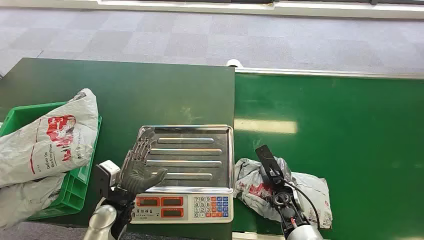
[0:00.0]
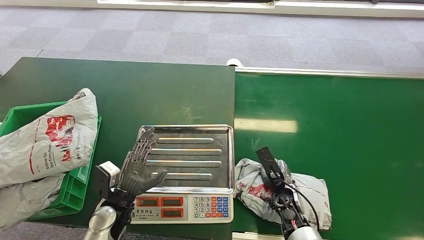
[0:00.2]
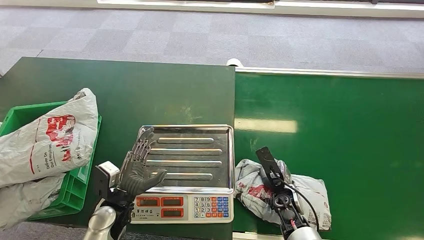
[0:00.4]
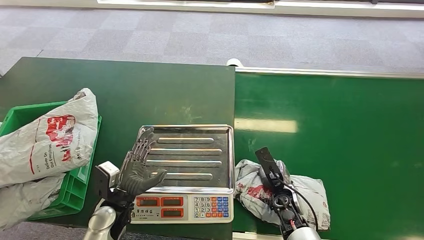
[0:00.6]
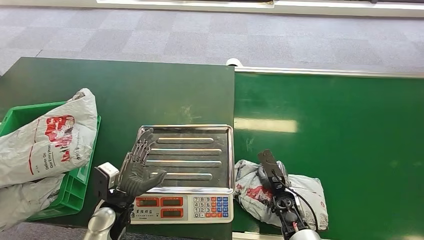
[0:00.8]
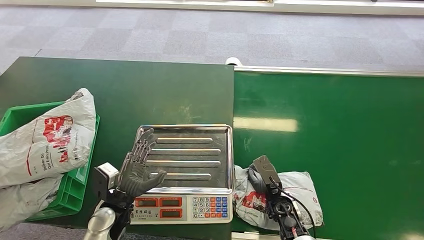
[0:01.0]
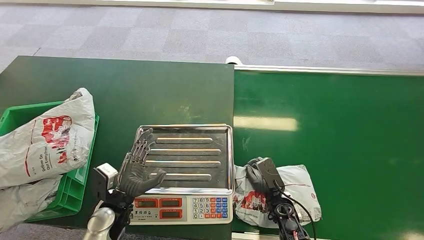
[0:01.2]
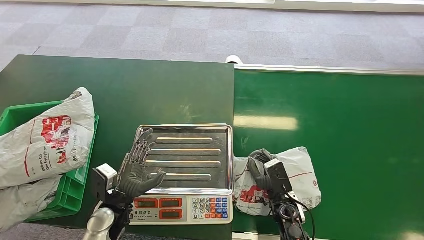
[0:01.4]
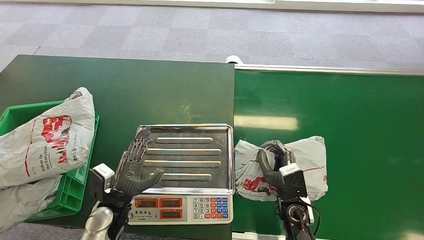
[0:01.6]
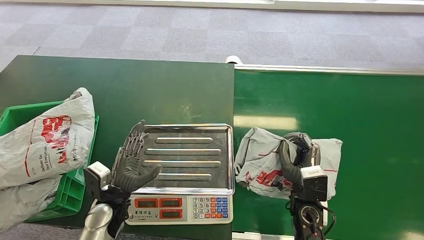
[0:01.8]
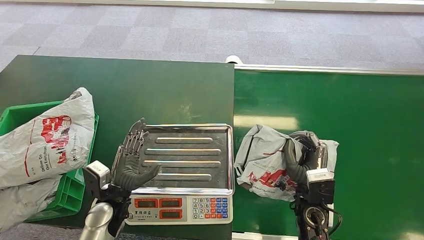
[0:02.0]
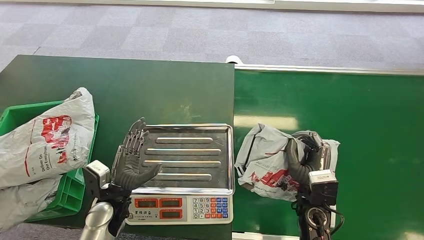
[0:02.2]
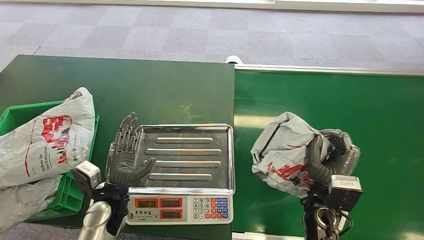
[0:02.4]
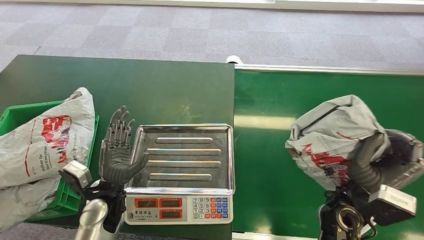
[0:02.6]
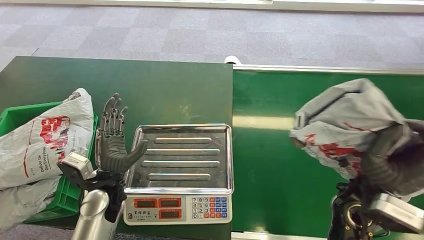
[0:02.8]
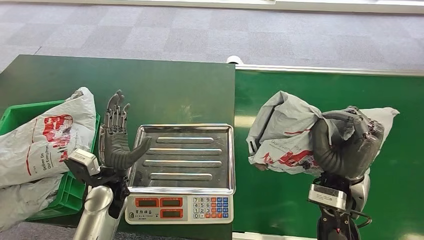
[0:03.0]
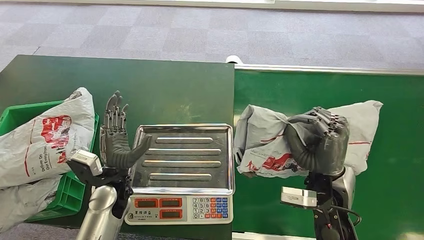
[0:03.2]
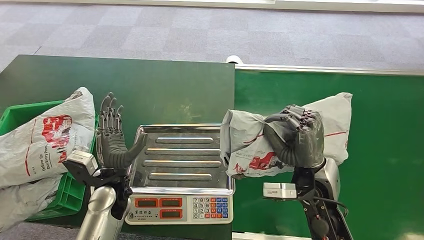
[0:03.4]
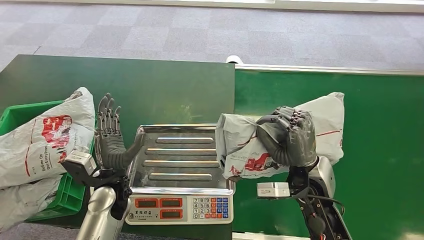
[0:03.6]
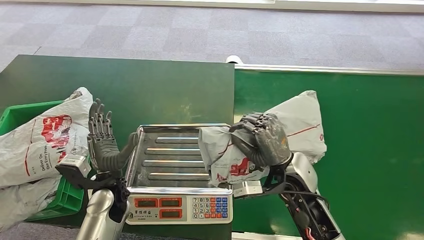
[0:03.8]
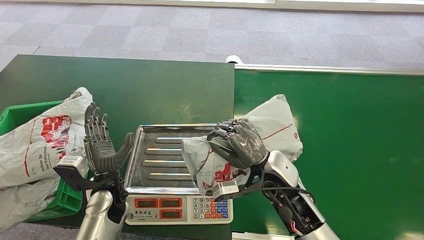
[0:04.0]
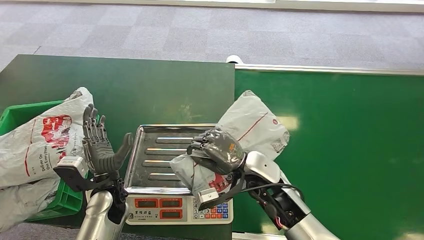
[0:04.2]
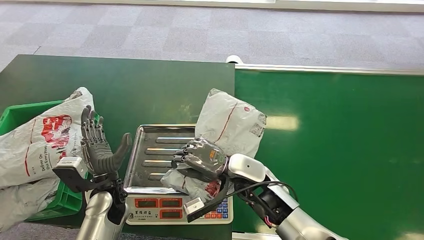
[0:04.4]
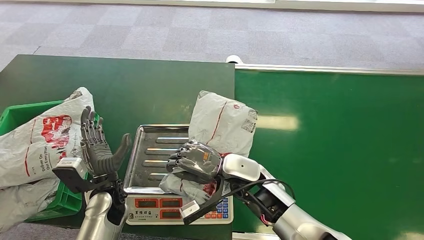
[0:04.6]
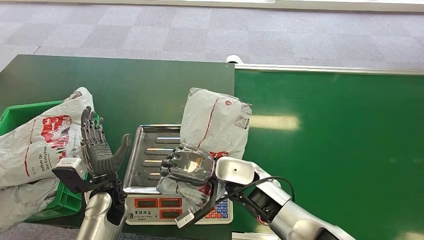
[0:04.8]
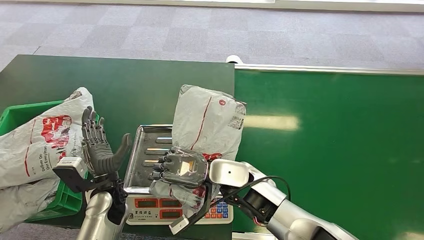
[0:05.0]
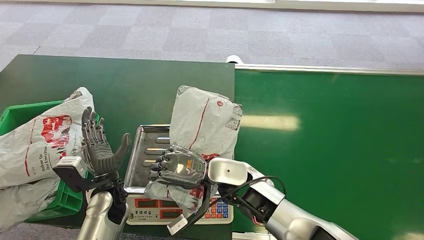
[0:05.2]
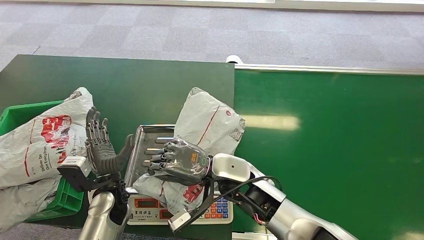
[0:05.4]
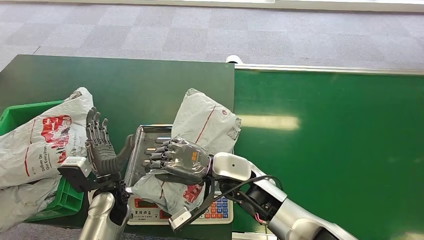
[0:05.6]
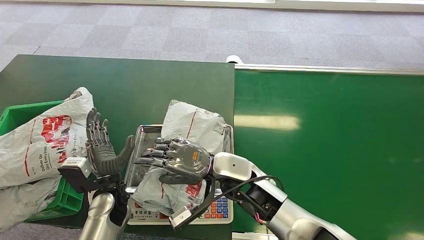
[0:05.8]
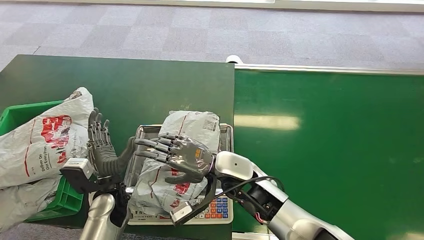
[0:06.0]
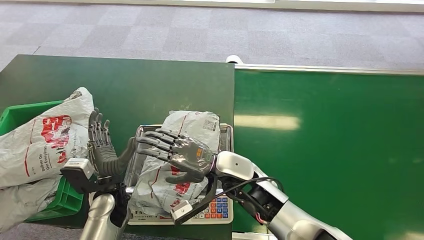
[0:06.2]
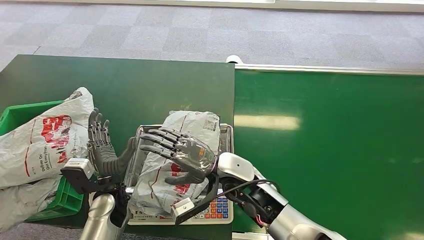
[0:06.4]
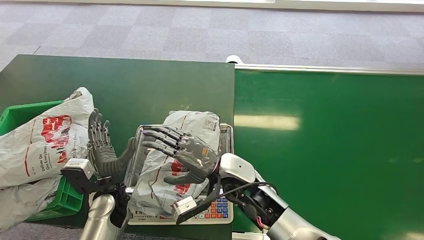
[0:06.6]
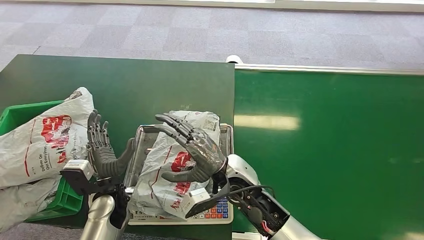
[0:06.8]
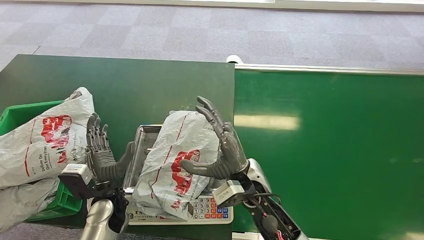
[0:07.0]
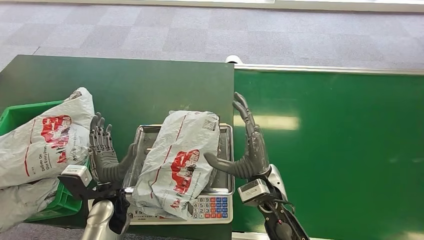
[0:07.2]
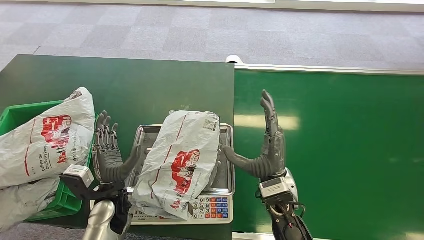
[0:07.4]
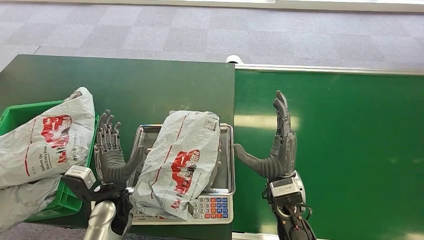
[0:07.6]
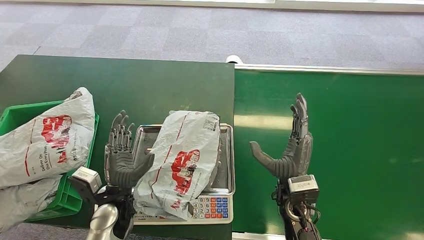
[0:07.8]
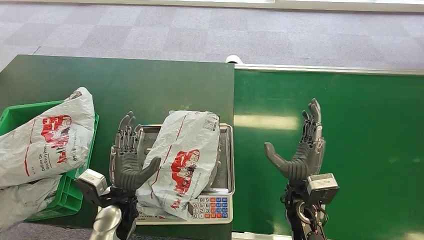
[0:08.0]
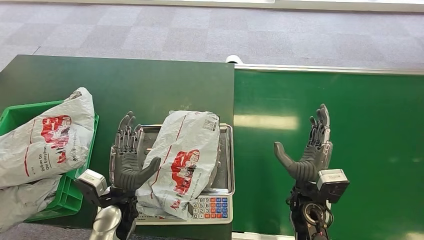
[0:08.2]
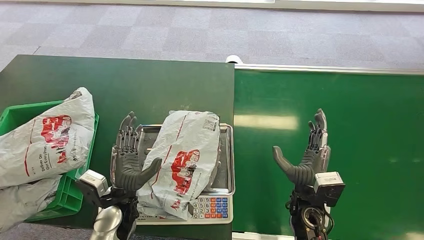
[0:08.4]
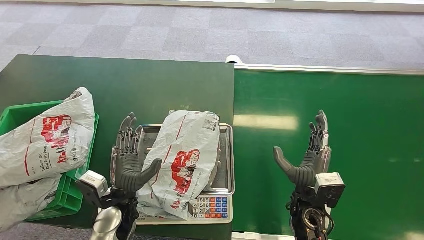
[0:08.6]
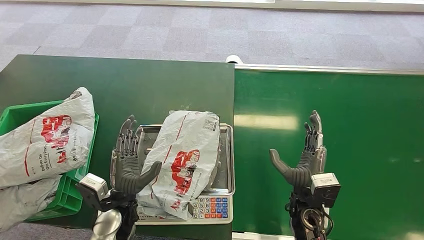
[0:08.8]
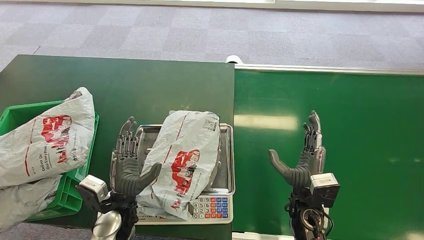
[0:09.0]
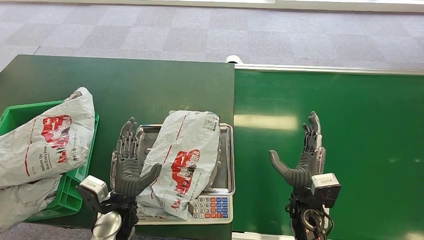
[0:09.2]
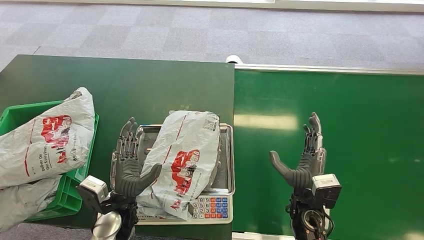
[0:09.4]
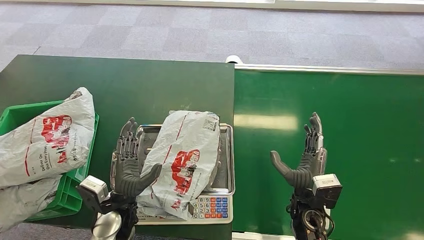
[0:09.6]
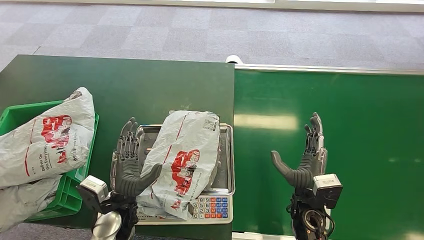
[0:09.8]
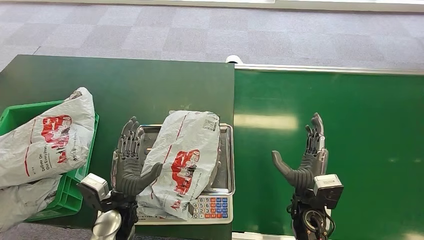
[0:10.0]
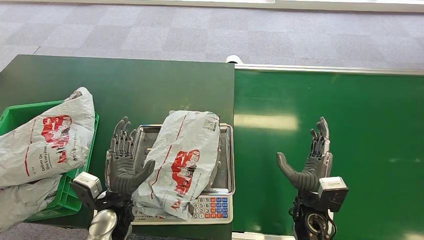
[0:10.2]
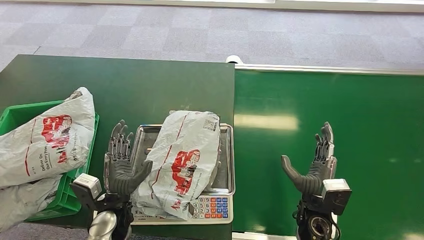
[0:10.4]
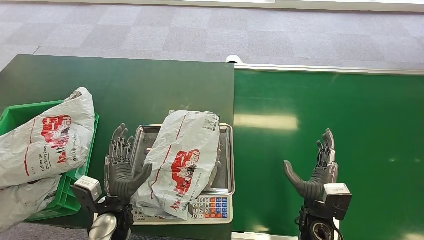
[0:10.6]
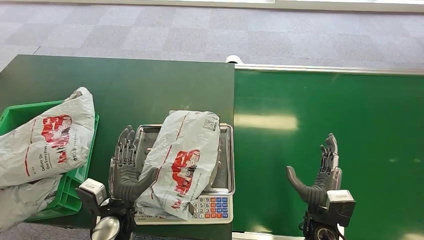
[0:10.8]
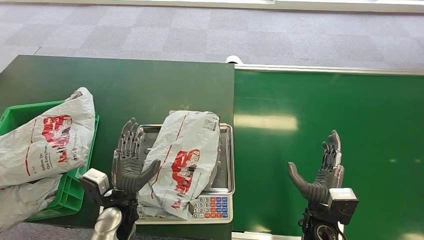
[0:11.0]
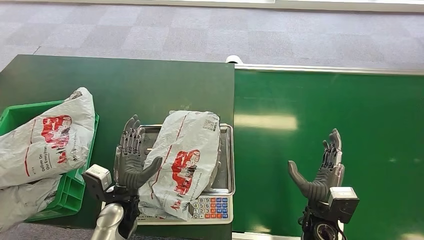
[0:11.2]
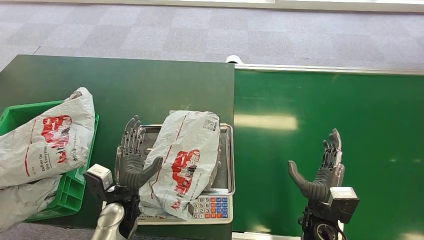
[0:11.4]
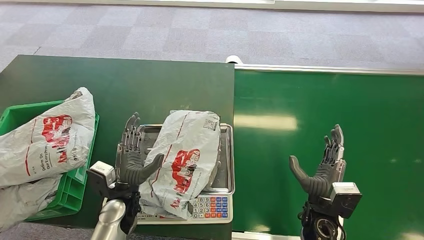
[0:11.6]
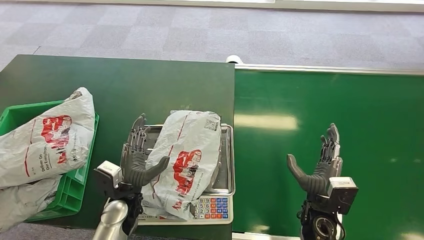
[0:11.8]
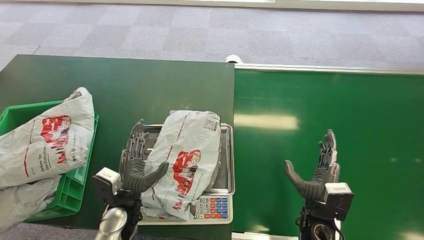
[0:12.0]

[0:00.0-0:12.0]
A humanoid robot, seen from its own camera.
Task of the whole recording: Weigh the package on the weighing device and place it in the left basket.
Step, 0:00.0 to 0:02.0: Pick up the package from the conveyor belt.
Step, 0:03.2 to 0:05.8: Place the package onto the inbound machine.
0:01.6 to 0:03.0: The left hand travels upward by roughly 5 cm; the right hand is displaced upward by approximately 15 cm.
0:04.4 to 0:06.0: The hands stay close to where they were, moving slightly.
0:06.0 to 0:07.6: The right hand is displaced to the right and backward by some 10 cm.
0:07.6 to 0:09.0: The right hand moves to the right, about 5 cm.
0:09.0 to 0:12.0: The hands move only a little.

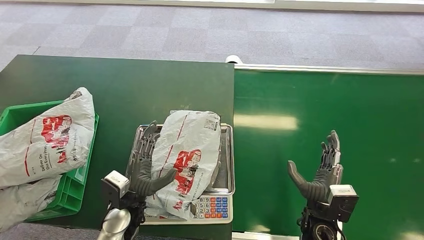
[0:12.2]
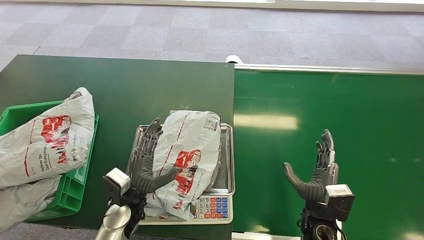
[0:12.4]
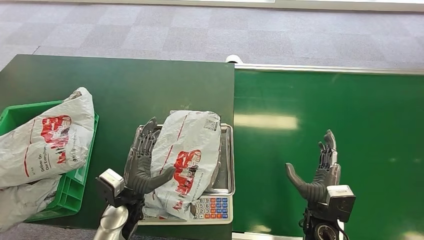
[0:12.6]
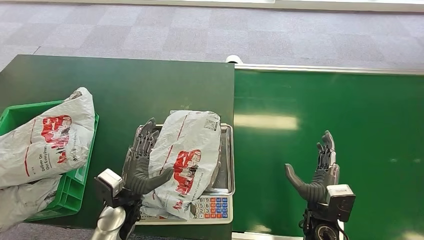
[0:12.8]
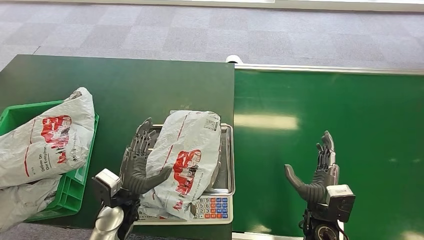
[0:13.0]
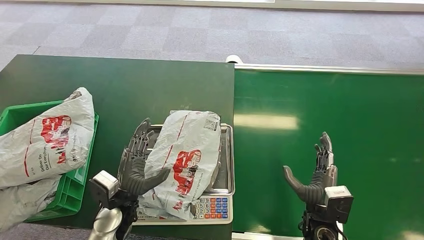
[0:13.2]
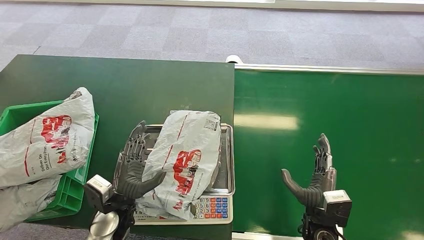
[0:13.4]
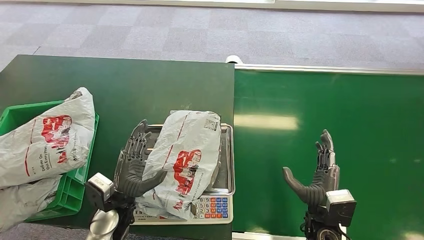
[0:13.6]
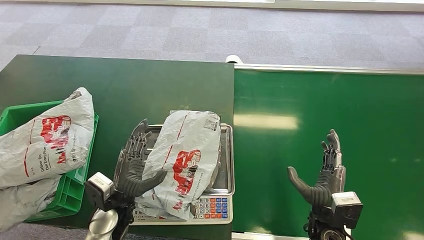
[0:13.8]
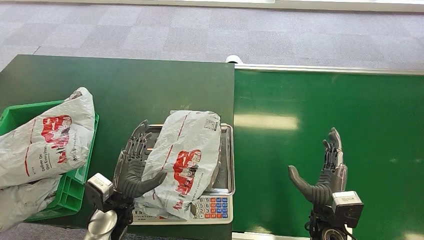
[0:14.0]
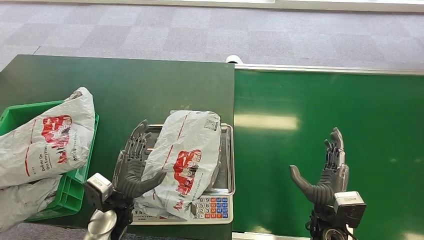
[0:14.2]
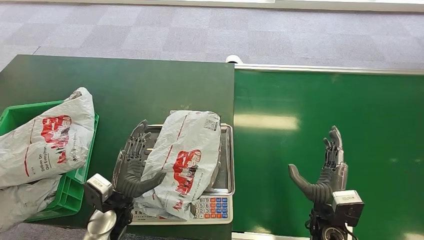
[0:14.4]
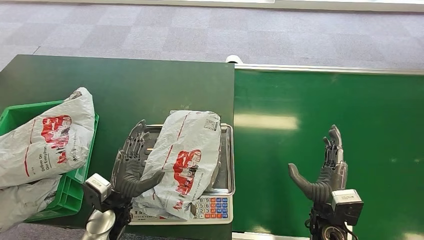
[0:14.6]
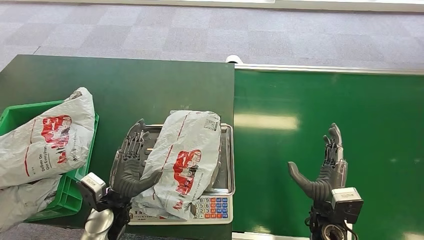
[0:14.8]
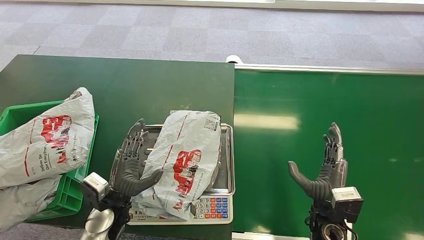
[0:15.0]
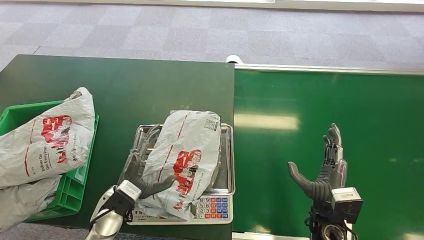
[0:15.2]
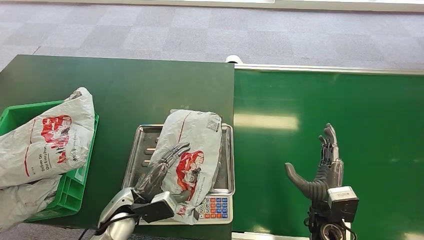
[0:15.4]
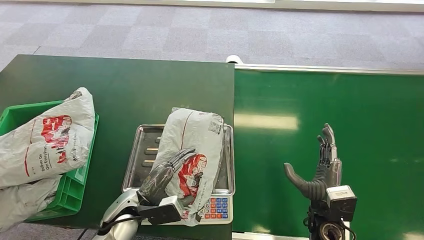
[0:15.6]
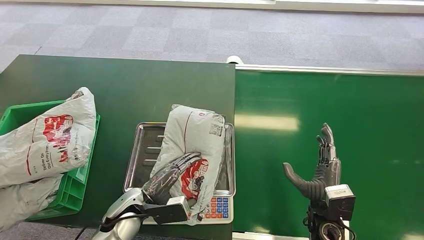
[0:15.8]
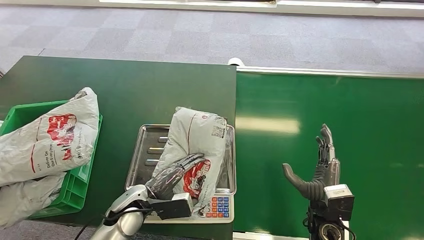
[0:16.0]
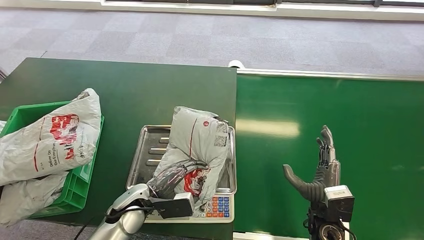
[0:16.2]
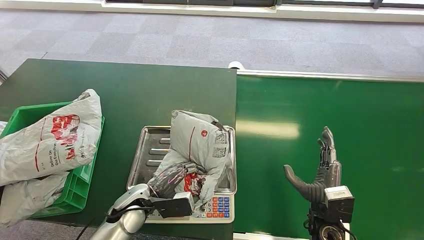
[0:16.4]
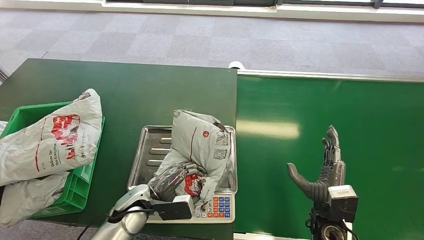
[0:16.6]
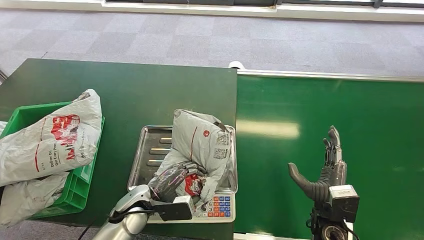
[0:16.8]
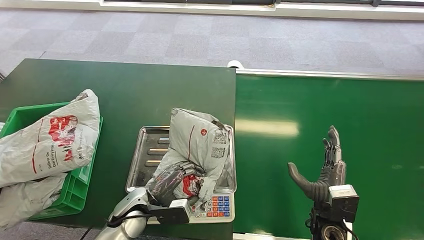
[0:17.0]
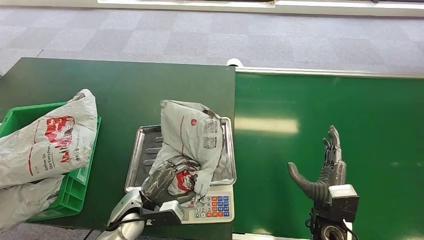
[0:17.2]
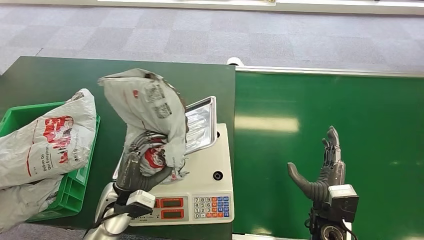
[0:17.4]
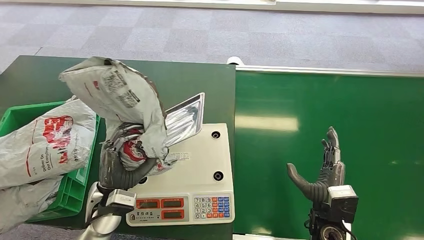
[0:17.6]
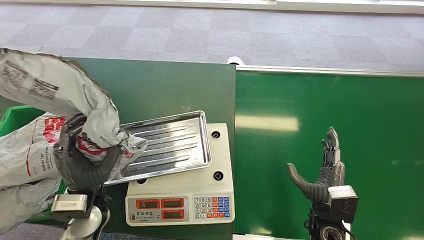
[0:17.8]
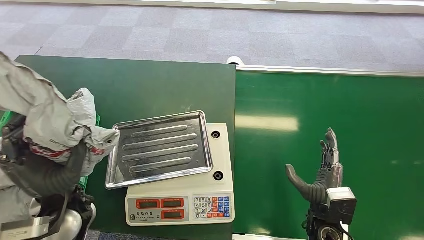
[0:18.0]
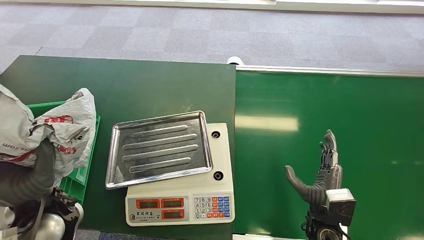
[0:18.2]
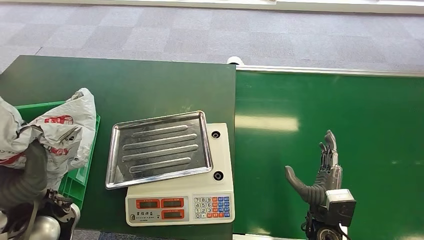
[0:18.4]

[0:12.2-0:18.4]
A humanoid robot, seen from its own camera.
Task of the whole recording: Weigh the package on the weighing device and place it in the left basket.
Step, 0:15.6 to 0:17.8: Pick up the package from the inbound machine.
0:12.2 to 0:13.8: The hands stay close to where they were, moving slightly.
